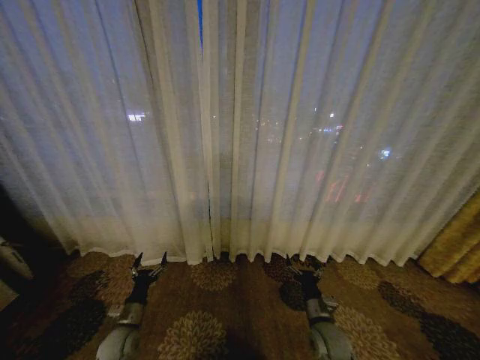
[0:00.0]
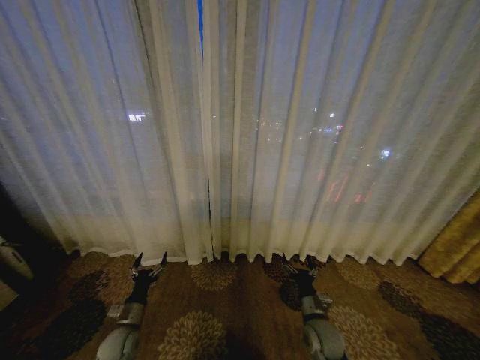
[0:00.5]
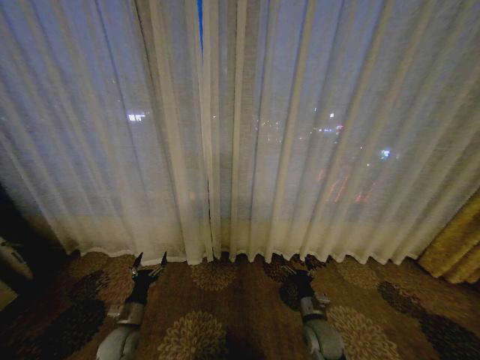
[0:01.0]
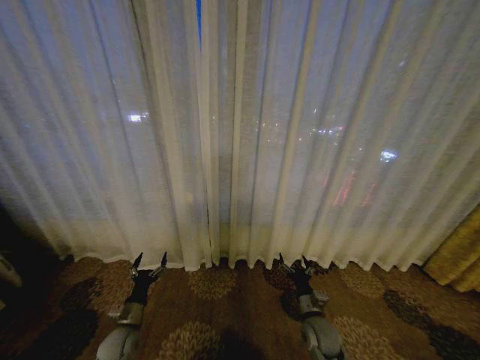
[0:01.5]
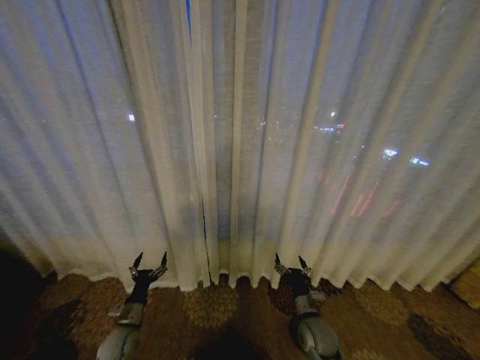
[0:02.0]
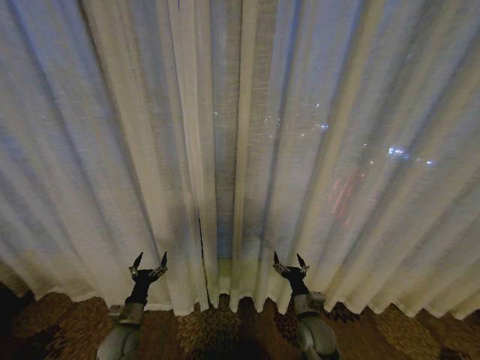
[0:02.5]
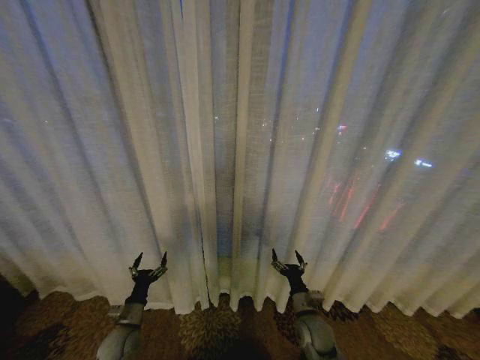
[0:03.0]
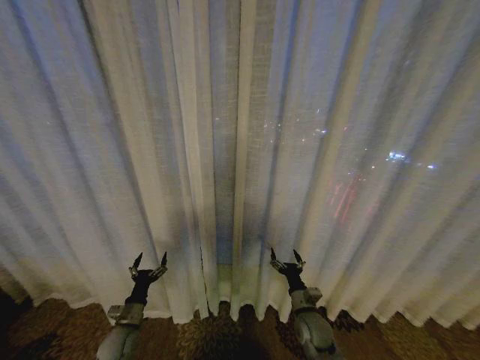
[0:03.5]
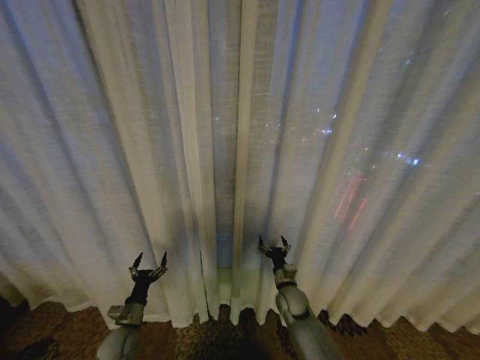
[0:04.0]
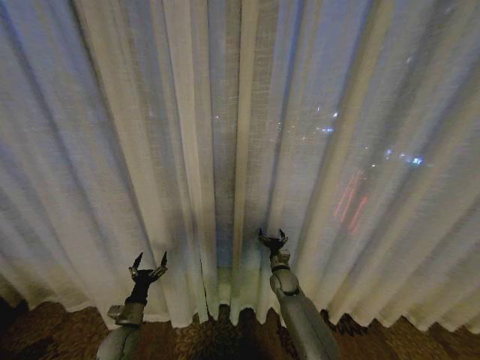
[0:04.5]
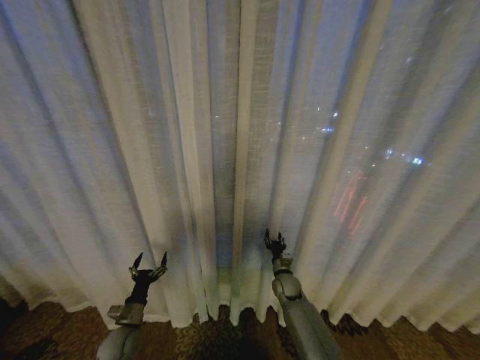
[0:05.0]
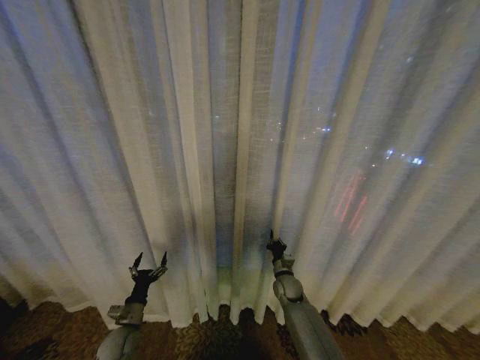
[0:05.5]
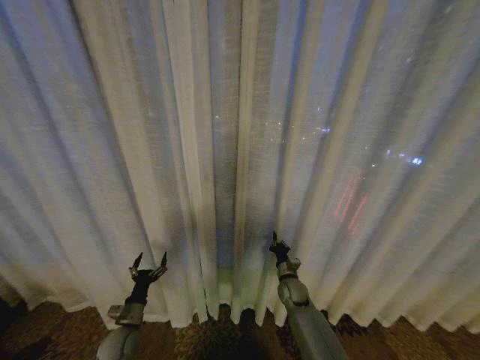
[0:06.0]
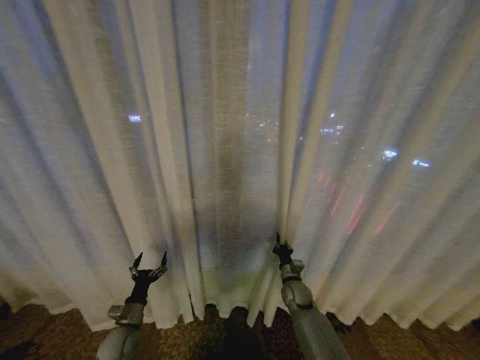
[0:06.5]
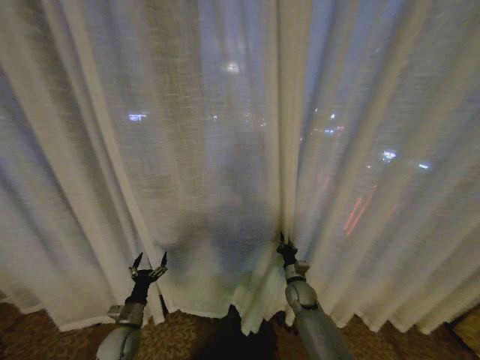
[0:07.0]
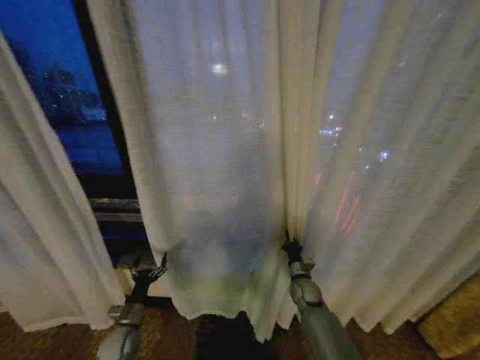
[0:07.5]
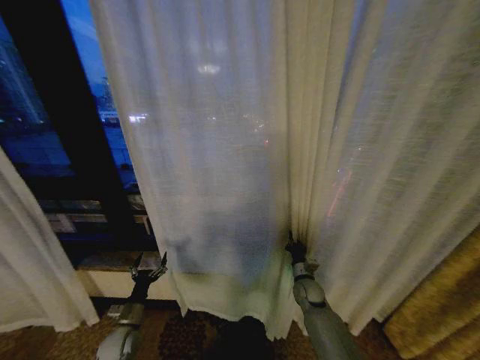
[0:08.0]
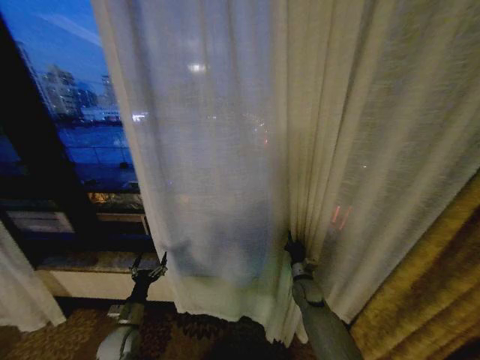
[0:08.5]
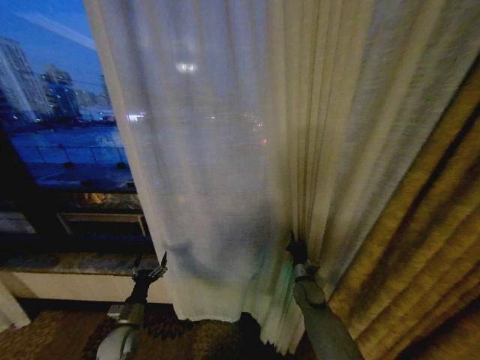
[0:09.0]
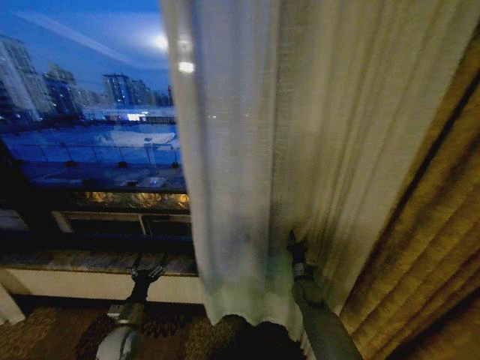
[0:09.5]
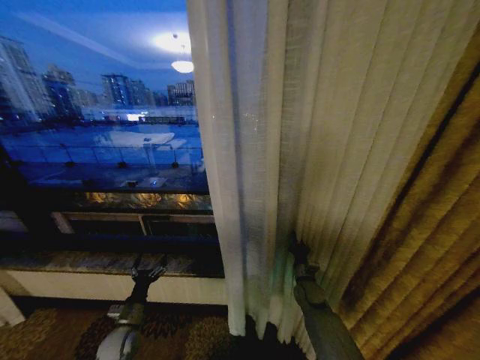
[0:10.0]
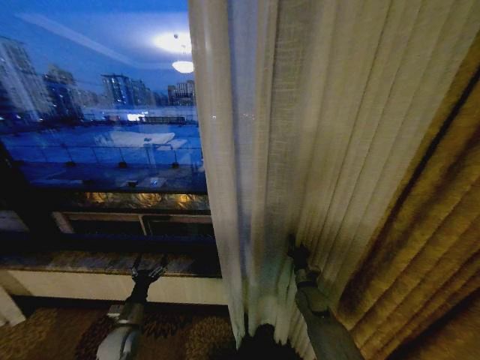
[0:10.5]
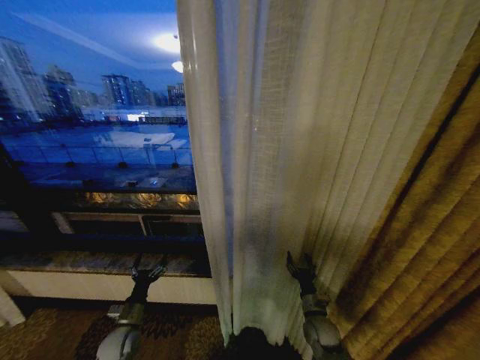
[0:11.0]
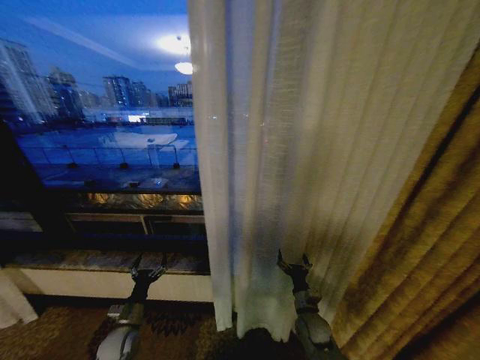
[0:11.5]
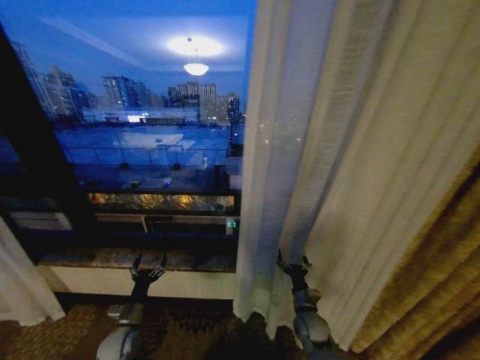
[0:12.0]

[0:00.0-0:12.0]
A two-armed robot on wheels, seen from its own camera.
Task of the whole recording: Open the curtains by pulling them apart, changing their state from closed to fully open.
0:02.0 to 0:04.0: The right gripper goes some 10 cm forward.
0:04.0 to 0:06.0: The right gripper ends up roughly 5 cm from where it was, and closes its fingers.
0:06.0 to 0:08.0: The right gripper travels to the right by about 5 cm.
0:10.0 to 0:12.0: The right gripper is displaced backward by about 10 cm, and opens.

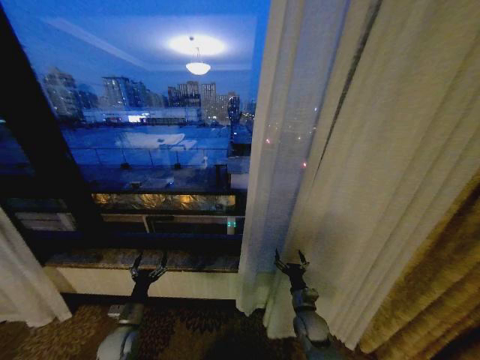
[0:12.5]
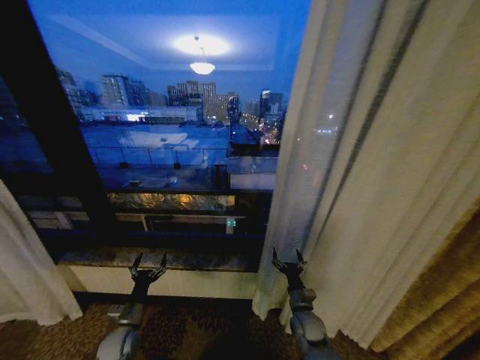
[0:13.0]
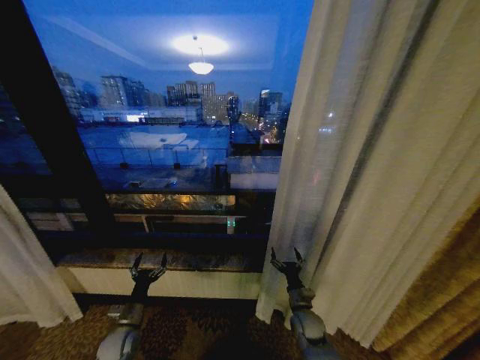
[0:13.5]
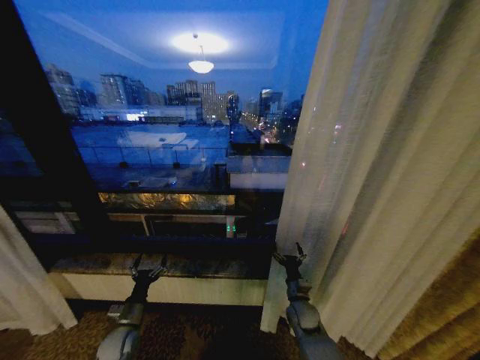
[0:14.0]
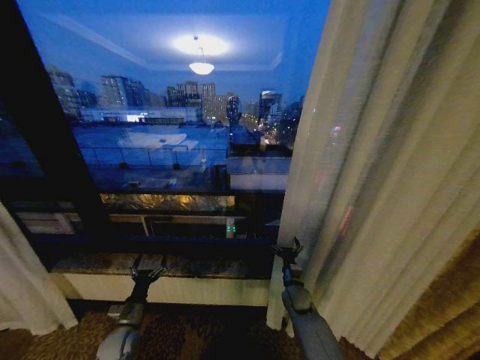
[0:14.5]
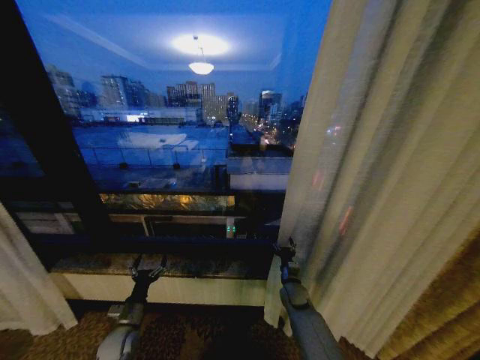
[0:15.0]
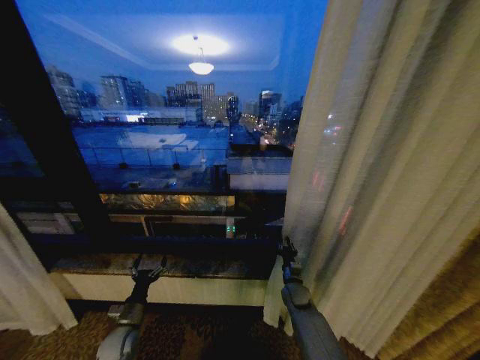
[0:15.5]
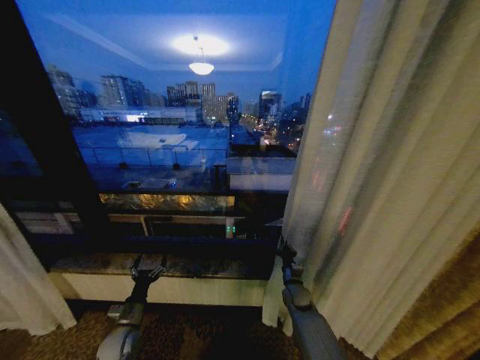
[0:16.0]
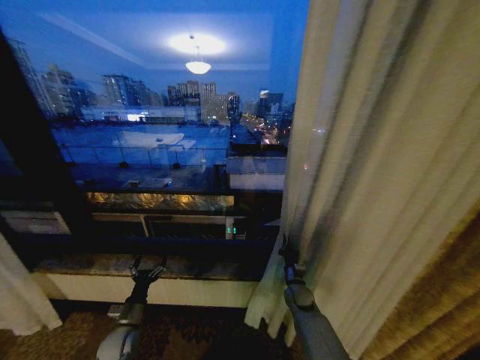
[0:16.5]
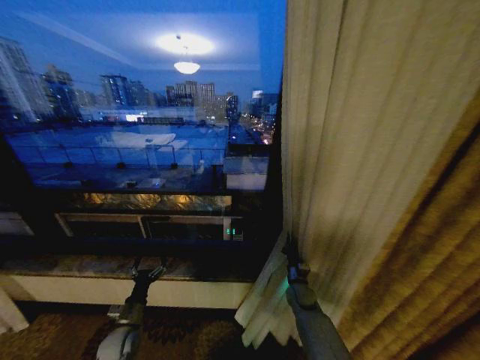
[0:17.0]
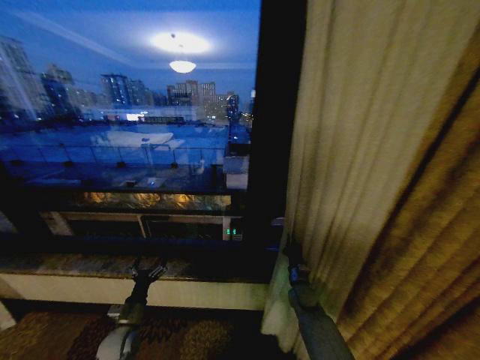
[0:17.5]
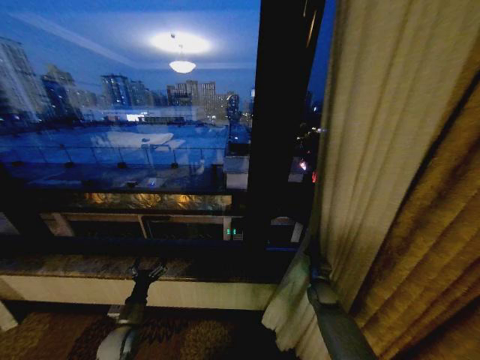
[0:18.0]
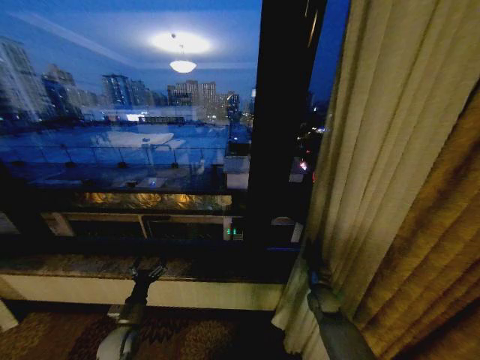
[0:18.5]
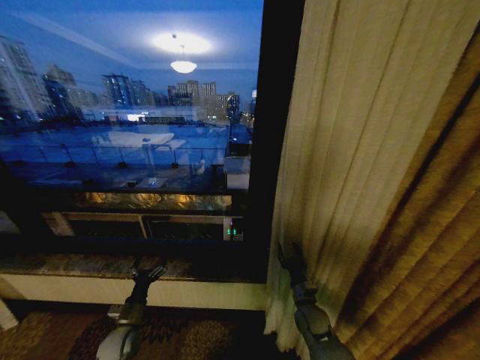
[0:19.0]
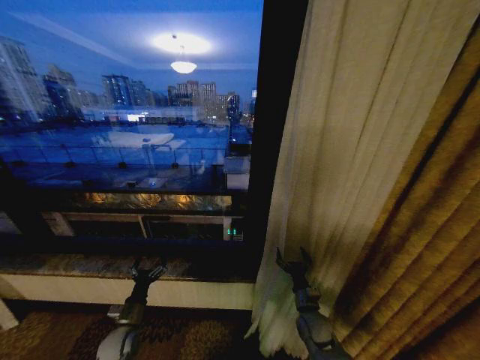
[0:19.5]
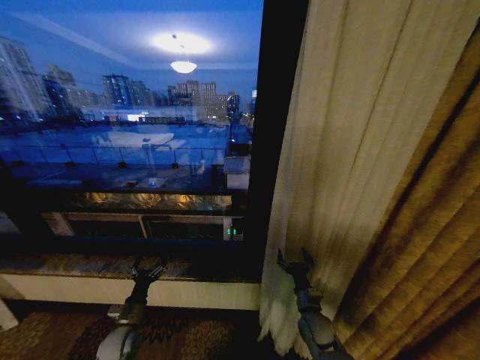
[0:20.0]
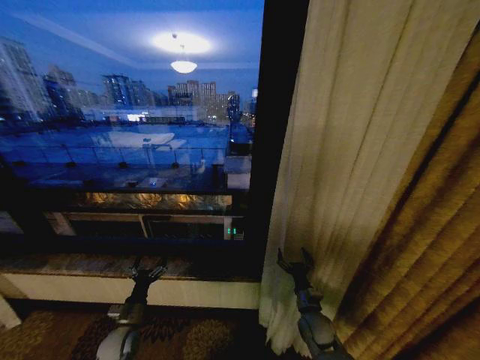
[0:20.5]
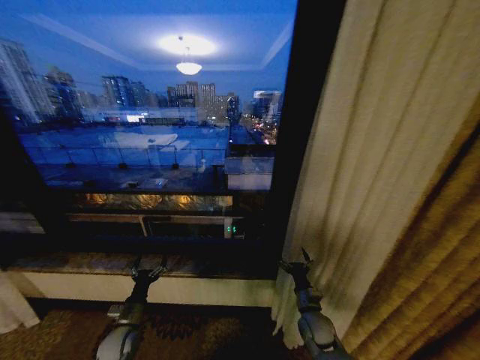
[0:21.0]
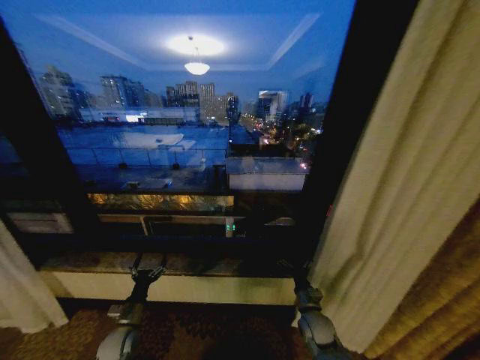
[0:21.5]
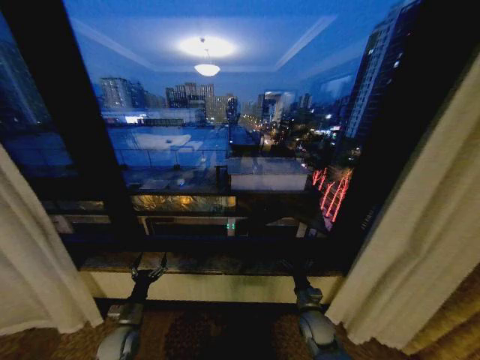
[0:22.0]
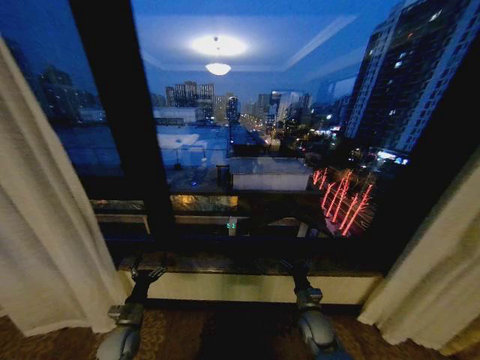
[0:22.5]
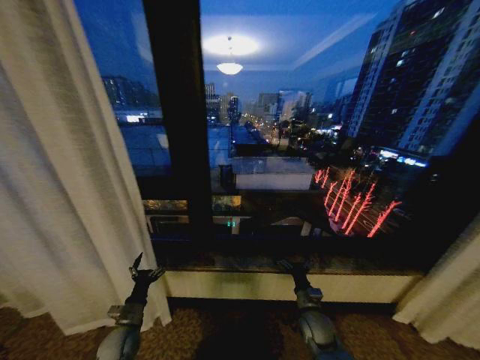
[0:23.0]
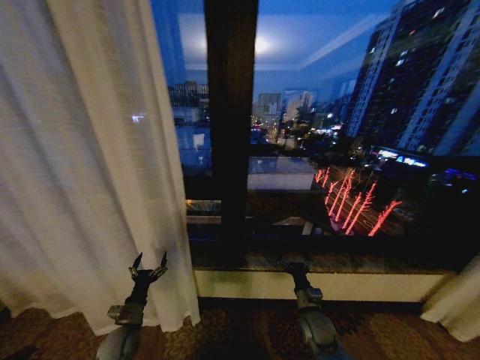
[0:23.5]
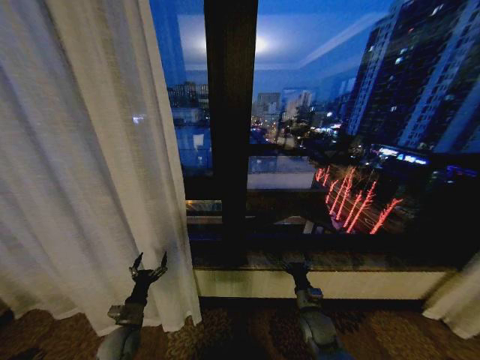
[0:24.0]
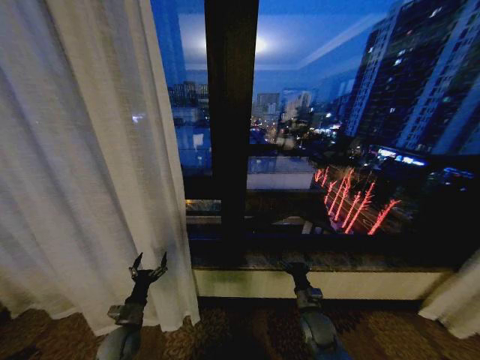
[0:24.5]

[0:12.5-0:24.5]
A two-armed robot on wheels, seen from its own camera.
Task of the whole recording: Open the curtains by pulling them apart, changing their state from closed to fully open.
0:12.5 to 0:14.5: The right gripper heads forward, covering some 10 cm.
0:14.5 to 0:16.5: The right gripper closes.
0:16.5 to 0:18.5: The right gripper shifts roughly 5 cm to the right.
0:18.5 to 0:20.5: The right gripper heads backward and to the left, covering about 10 cm, and opens.

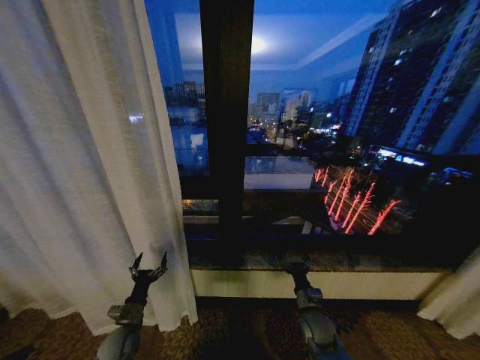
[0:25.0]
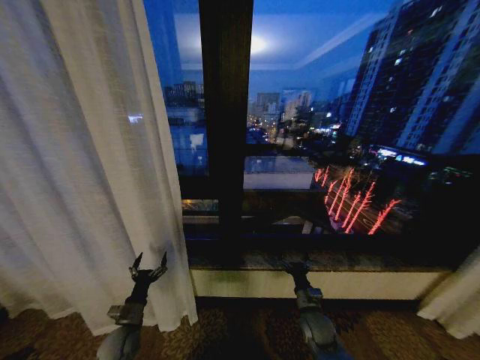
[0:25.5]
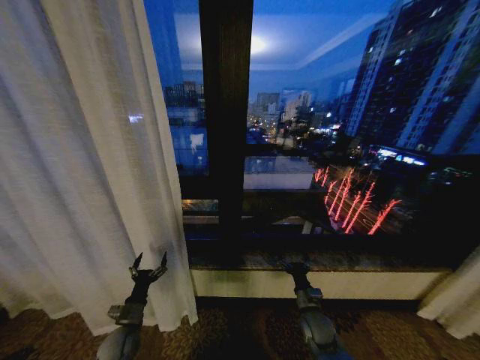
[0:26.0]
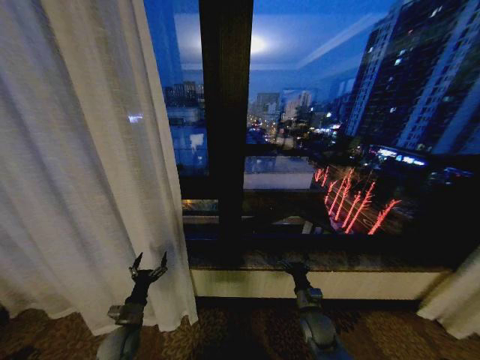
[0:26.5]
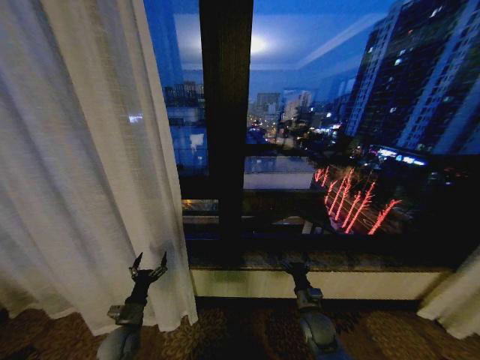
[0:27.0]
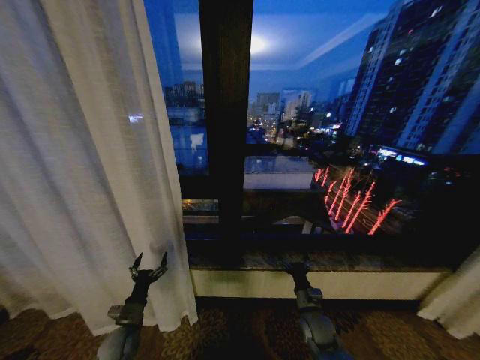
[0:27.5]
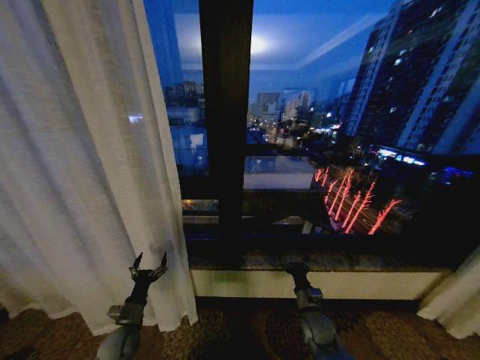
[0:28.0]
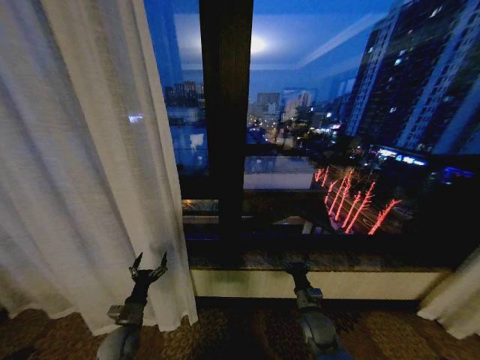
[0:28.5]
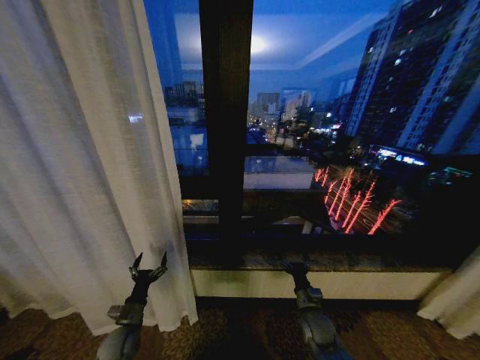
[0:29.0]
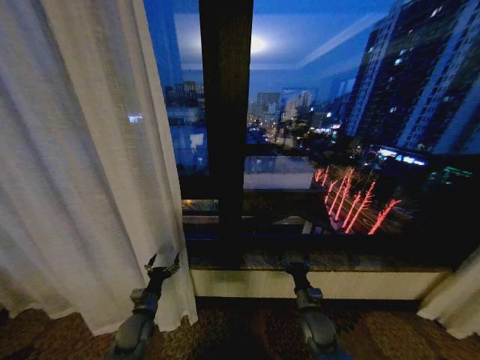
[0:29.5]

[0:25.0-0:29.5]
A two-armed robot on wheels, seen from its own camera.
Task of the whole recording: Open the curtains by pulling them apart, changing their state from closed to fully open.
0:25.0 to 0:27.0: The two grippers keep their place.
0:27.0 to 0:29.5: There are only small adjustments of the grippers.
